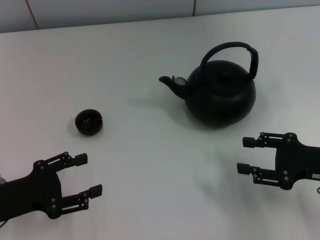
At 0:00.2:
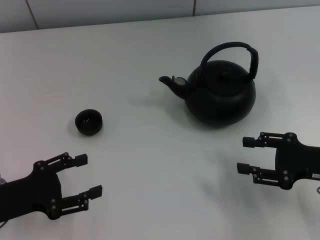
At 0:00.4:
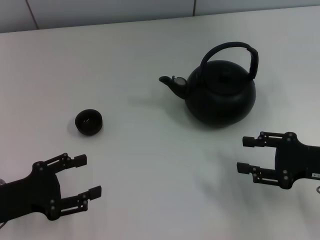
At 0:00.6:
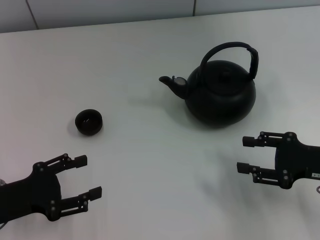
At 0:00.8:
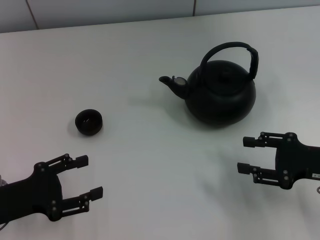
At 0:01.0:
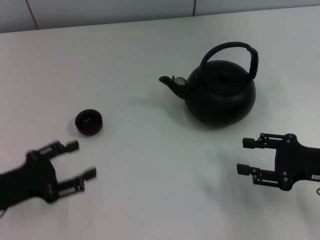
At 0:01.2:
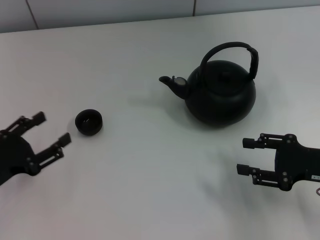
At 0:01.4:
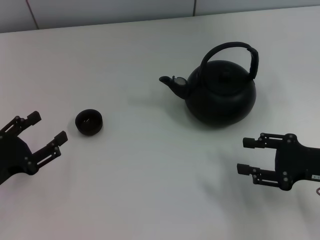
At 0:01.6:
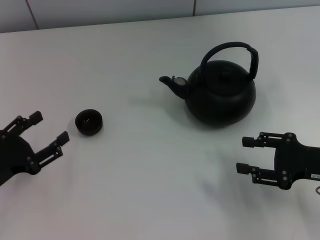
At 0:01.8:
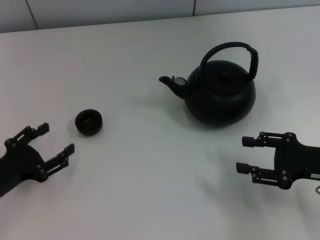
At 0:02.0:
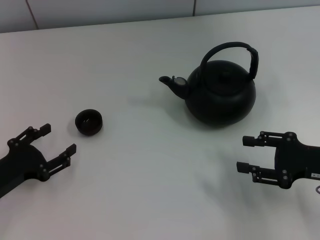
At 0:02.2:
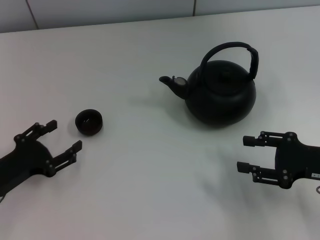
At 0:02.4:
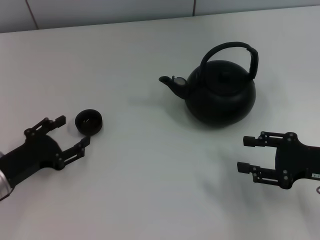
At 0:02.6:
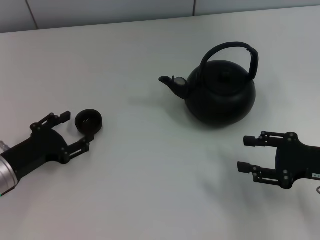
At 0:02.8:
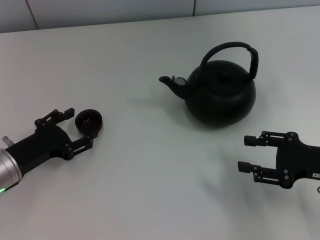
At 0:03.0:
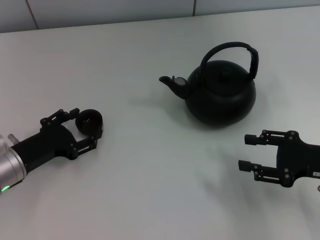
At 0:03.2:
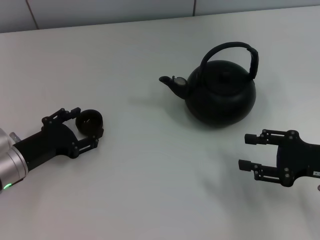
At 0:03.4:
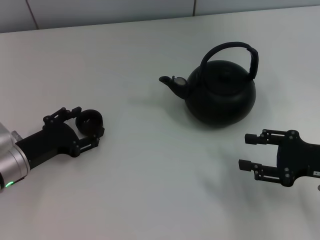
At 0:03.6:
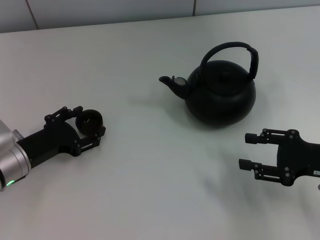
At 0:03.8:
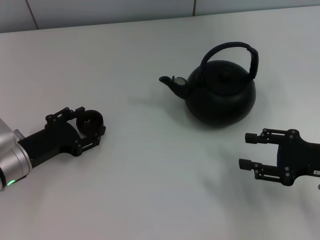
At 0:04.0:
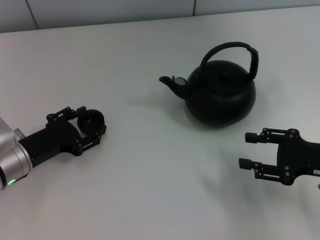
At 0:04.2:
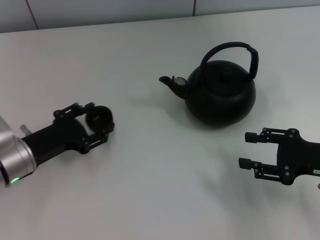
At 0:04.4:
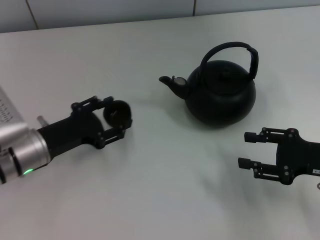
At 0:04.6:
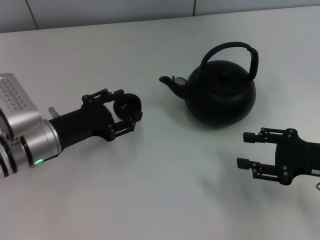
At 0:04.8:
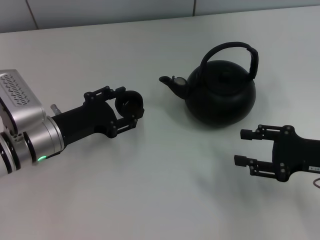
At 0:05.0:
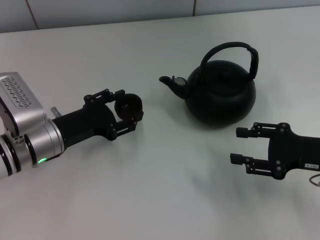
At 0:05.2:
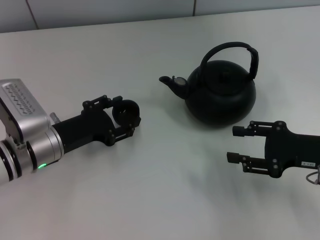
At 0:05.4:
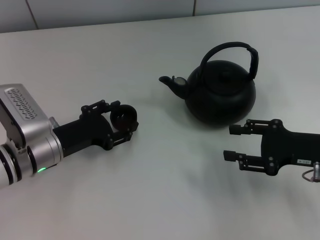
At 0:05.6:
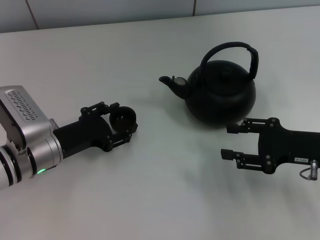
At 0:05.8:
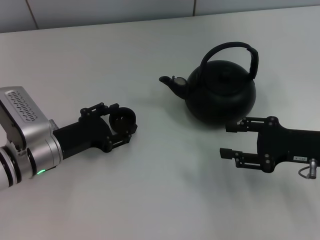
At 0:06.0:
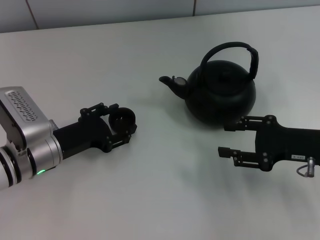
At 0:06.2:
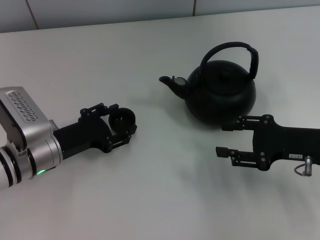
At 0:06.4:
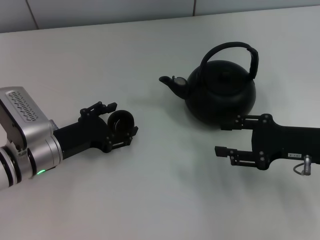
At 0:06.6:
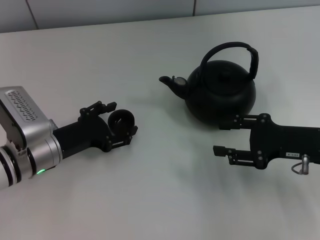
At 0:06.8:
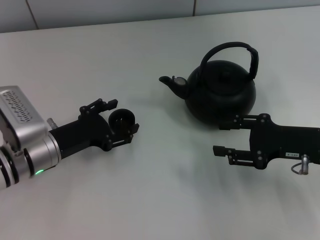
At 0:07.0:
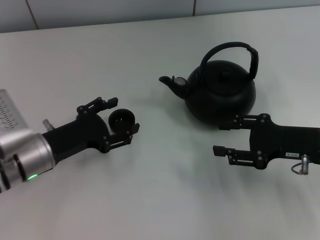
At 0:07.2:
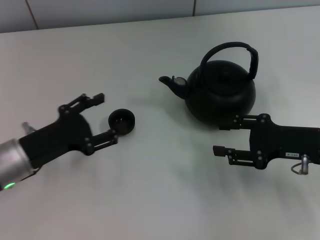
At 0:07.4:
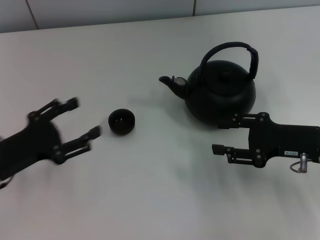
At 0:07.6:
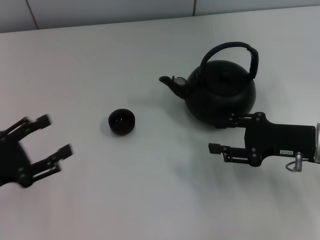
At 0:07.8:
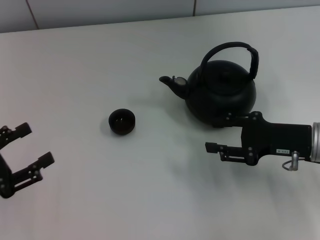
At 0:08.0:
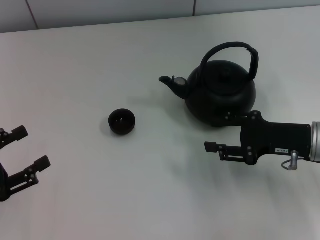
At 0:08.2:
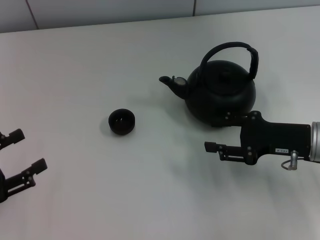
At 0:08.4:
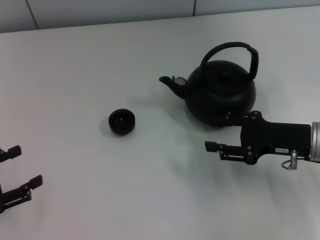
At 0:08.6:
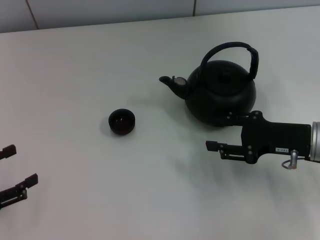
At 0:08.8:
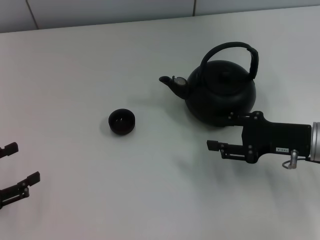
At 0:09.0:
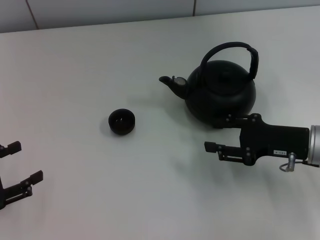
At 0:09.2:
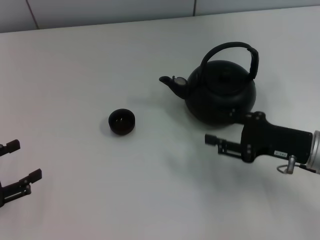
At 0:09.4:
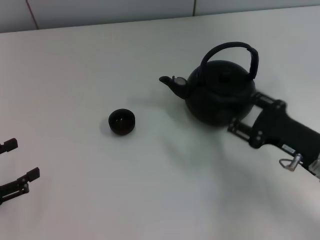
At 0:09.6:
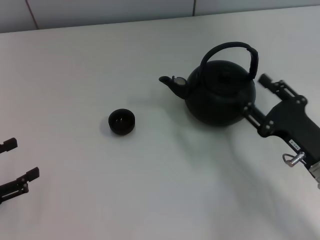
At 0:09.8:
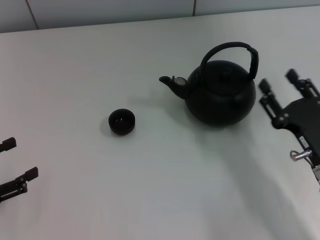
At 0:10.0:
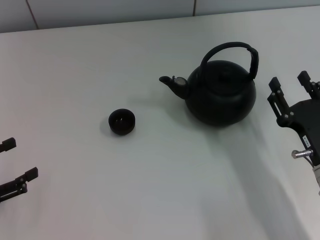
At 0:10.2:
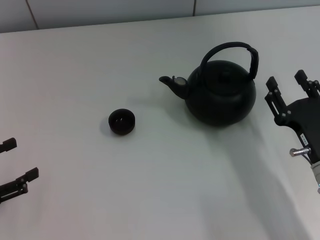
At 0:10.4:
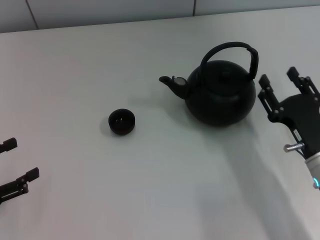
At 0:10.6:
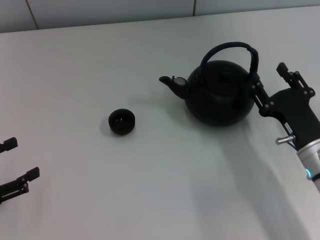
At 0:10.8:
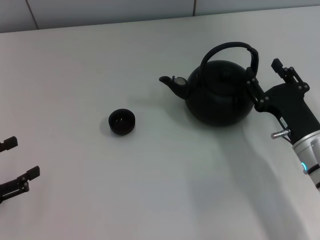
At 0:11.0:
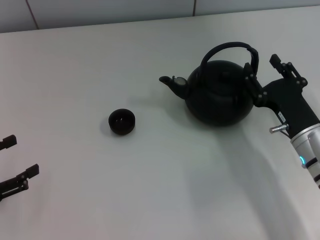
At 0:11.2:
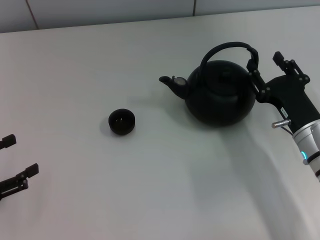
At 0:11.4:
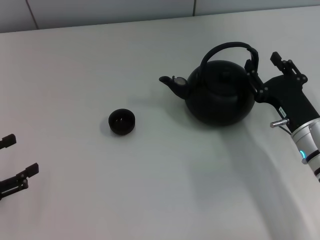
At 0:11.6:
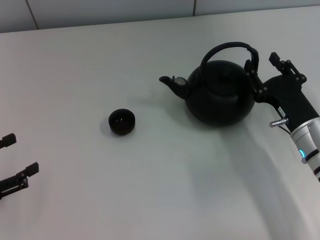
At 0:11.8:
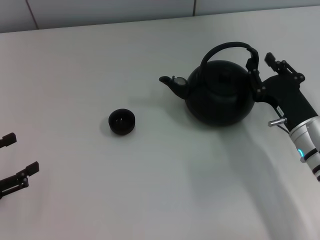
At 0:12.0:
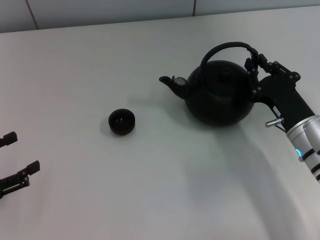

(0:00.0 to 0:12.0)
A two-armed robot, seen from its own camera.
Task of the whole recording: Grasp the handle of the teapot with one hand and pour tea into the teacup.
Step, 0:00.0 - 0:04.2: Pick up the teacup with the left gripper.
Step, 0:04.4 - 0:06.8: Place the teacup in the center of view with the left gripper.
0:01.6 - 0:03.0: The left gripper goes some 5 cm forward.
0:03.0 - 0:04.4: The grippers move only a little.
0:04.4 - 0:06.0: The grippers make only small movements.
0:06.0 - 0:07.6: The left gripper moves to the left and backward, roughly 15 cm, and opens.
0:07.6 - 0:09.0: The left gripper shifts about 5 cm to the left.
0:09.0 - 0:10.4: The right gripper shifts roughly 5 cm backward.
0:10.4 - 0:12.0: The right gripper goes approximately 5 cm forward.

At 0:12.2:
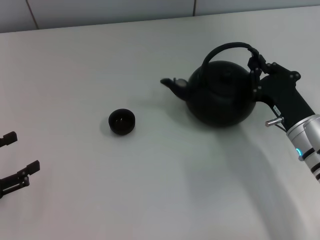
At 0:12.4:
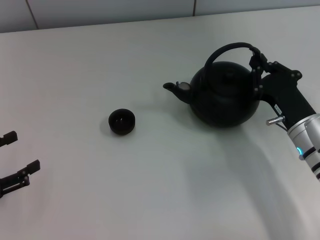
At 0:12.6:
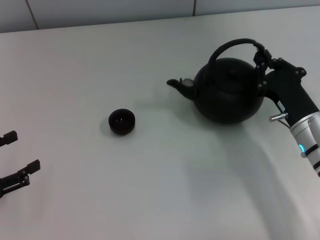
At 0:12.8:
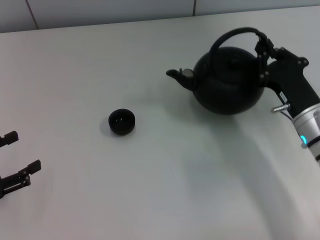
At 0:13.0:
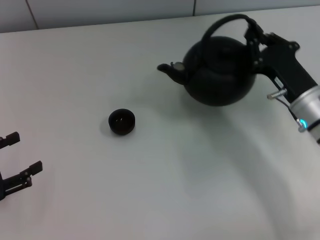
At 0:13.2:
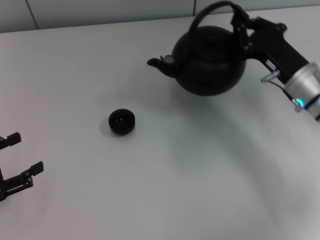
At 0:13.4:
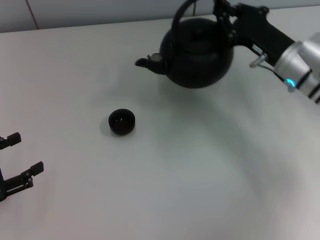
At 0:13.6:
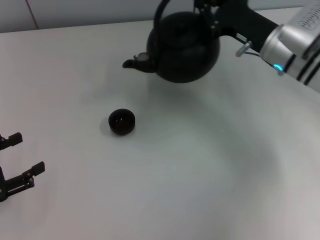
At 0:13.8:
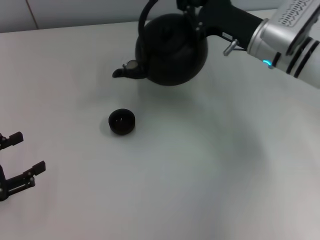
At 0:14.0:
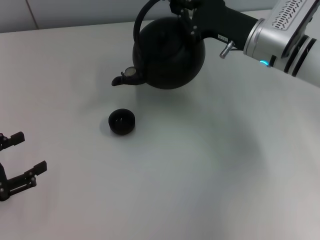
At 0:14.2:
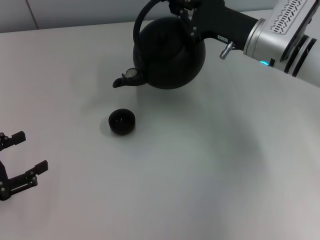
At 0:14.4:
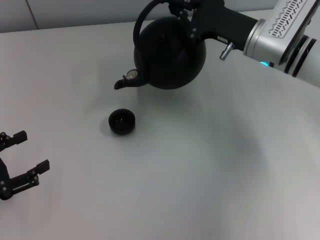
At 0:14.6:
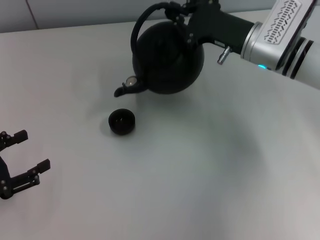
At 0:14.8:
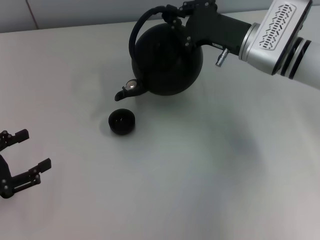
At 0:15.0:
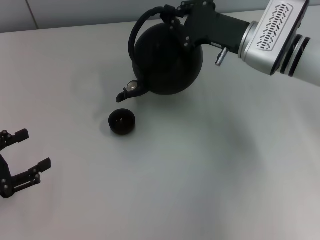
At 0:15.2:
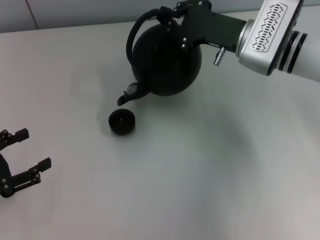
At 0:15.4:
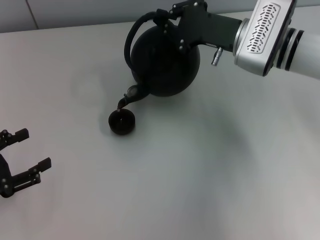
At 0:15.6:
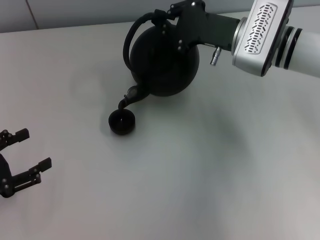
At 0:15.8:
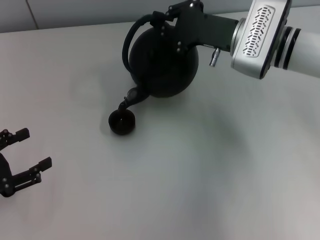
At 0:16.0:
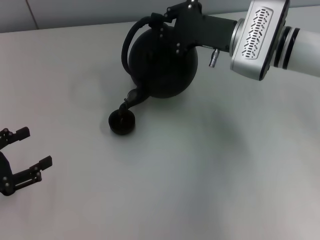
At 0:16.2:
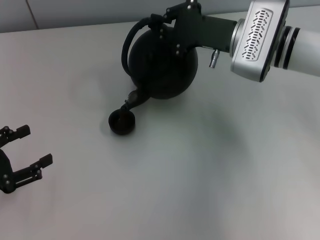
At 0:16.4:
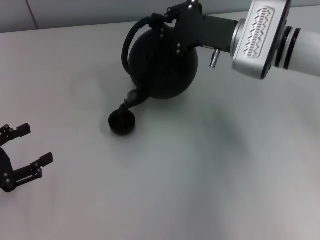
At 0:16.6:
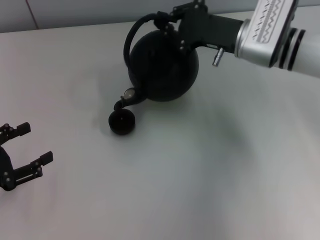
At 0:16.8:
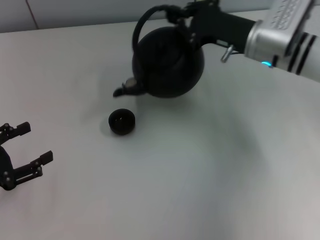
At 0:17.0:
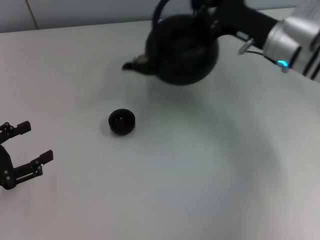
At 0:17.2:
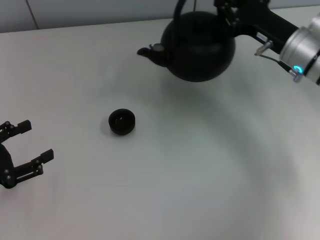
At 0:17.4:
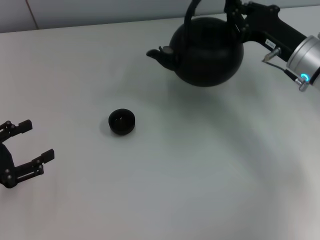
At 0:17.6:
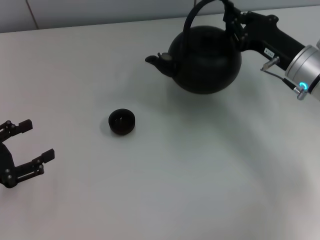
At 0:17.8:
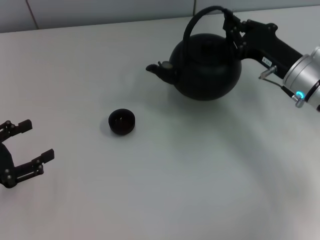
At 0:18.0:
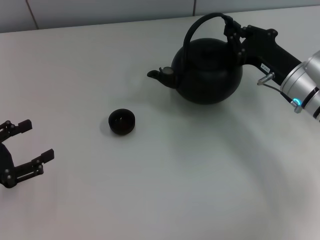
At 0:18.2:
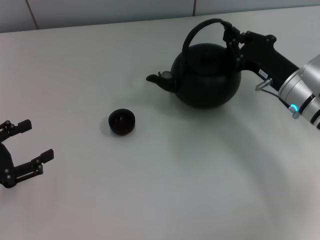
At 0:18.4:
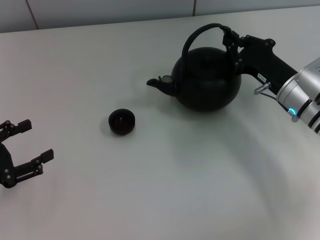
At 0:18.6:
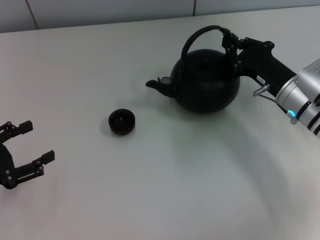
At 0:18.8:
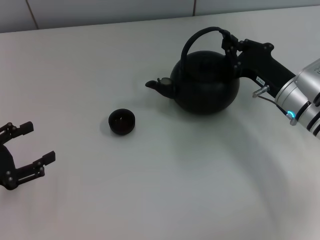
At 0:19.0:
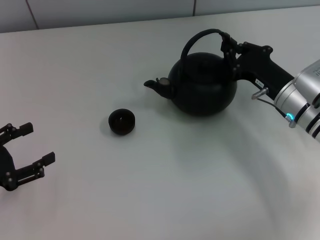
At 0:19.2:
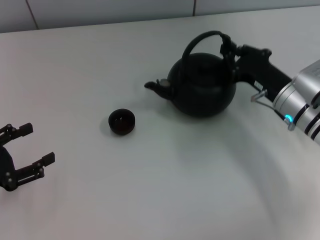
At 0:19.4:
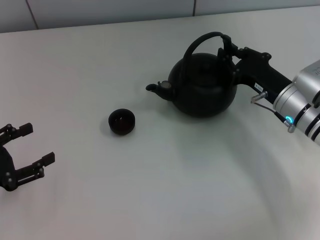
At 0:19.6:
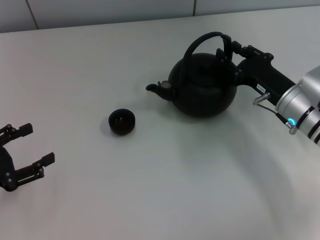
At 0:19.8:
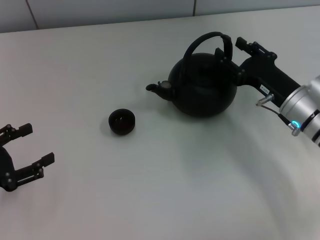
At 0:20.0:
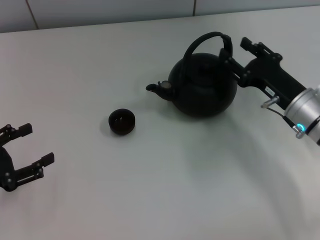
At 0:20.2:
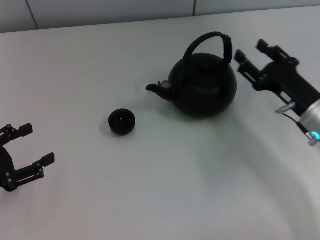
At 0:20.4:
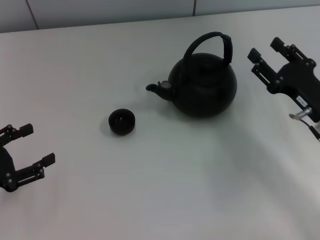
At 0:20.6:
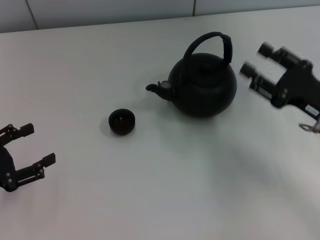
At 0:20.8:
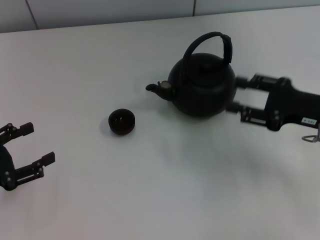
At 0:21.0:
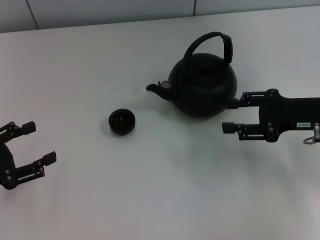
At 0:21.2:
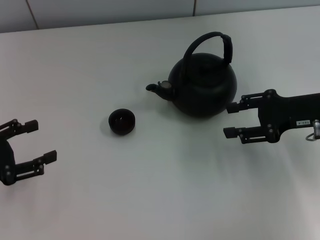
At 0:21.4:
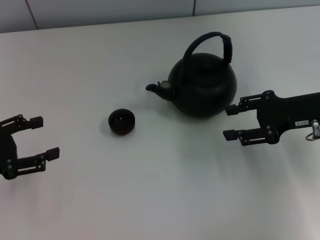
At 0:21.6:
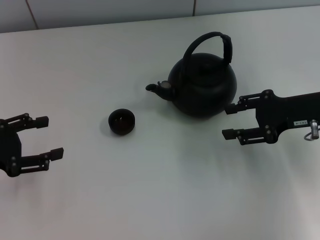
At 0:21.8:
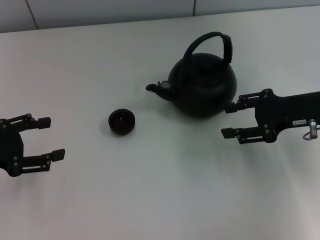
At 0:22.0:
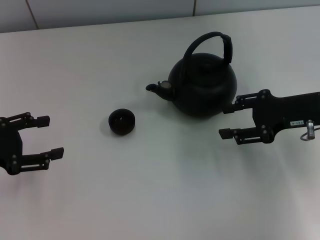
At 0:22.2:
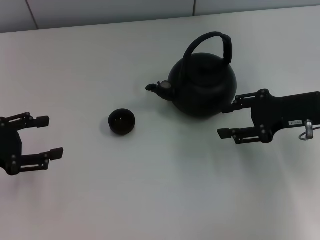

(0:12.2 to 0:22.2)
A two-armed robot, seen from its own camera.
Task of the whole recording: Grasp the handle of the teapot with one hand and pour tea into the teacup.
Step, 0:17.2 - 0:20.0: Put down the teapot with the right gripper.
0:12.2 - 0:13.6: The right gripper shifts approximately 15 cm forward and upward.
0:15.0 - 0:16.4: The grippers stay close to where they were, moving slightly.
0:16.4 - 0:18.0: The right gripper goes approximately 10 cm to the right, backward and downward.
0:18.0 - 0:19.4: The grippers stay close to where they were, moving slightly.
0:19.4 - 0:20.8: The right gripper shifts roughly 10 cm to the right and upward, and opens.
0:20.8 - 0:22.2: The left gripper moves some 5 cm.
